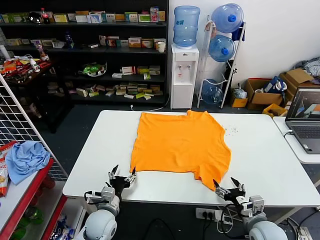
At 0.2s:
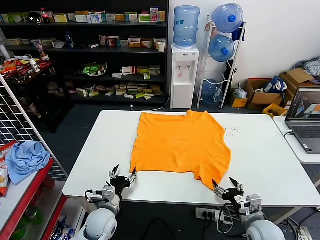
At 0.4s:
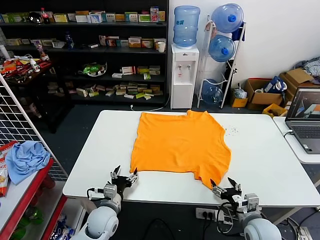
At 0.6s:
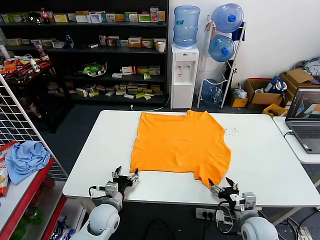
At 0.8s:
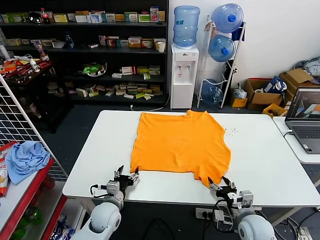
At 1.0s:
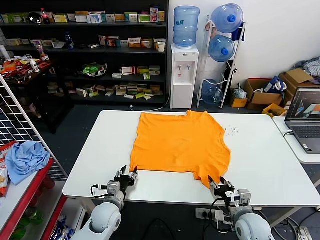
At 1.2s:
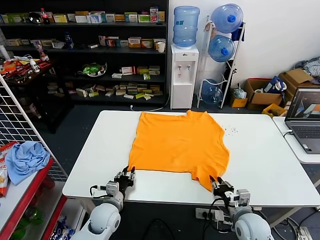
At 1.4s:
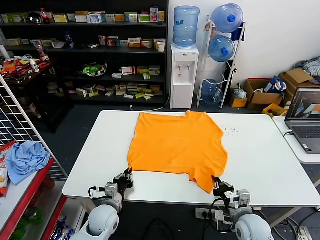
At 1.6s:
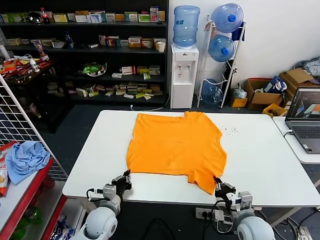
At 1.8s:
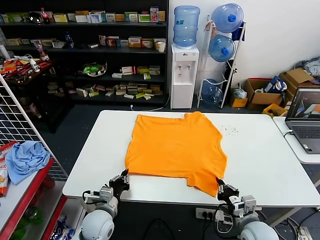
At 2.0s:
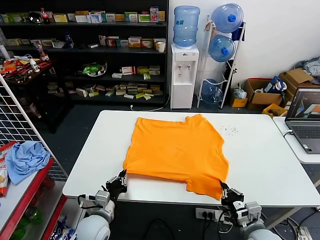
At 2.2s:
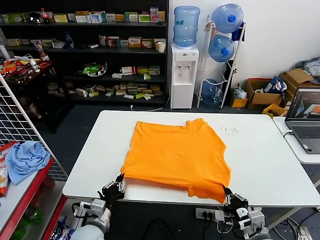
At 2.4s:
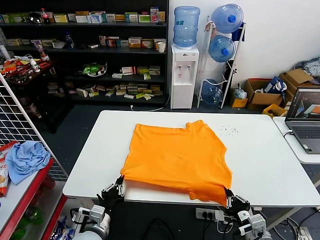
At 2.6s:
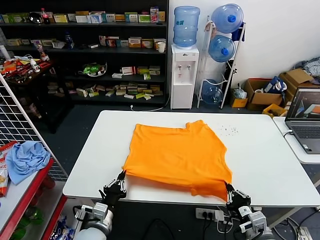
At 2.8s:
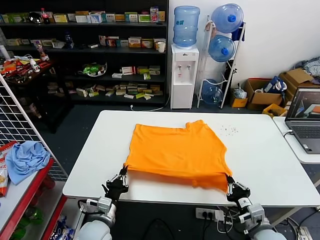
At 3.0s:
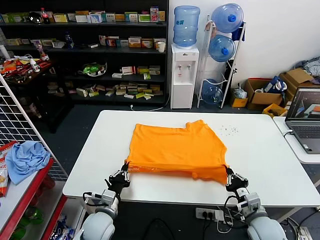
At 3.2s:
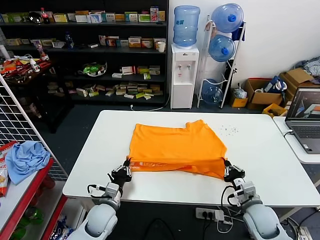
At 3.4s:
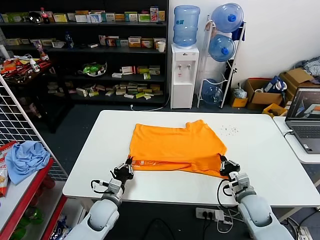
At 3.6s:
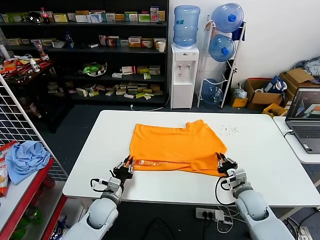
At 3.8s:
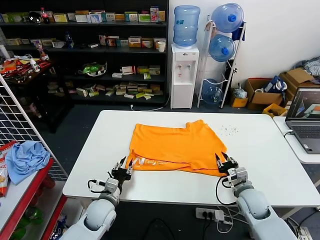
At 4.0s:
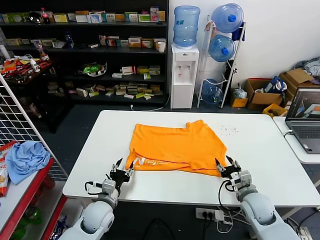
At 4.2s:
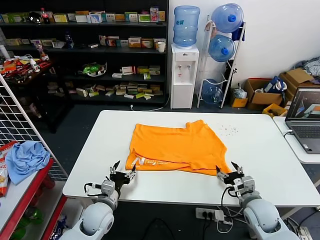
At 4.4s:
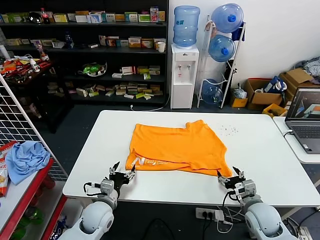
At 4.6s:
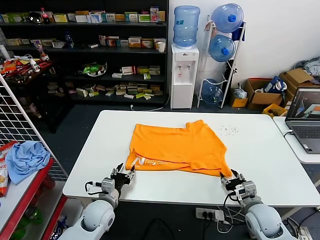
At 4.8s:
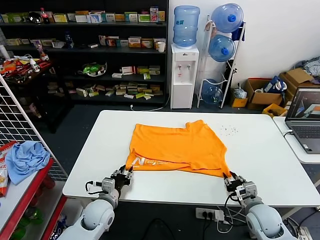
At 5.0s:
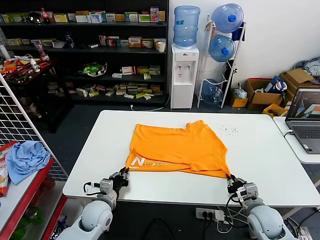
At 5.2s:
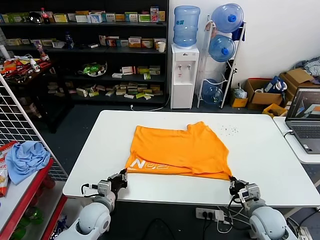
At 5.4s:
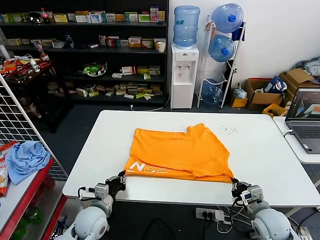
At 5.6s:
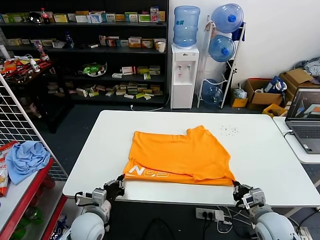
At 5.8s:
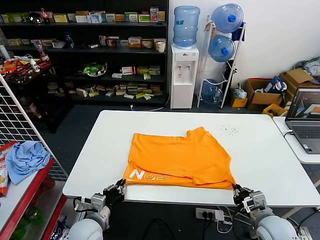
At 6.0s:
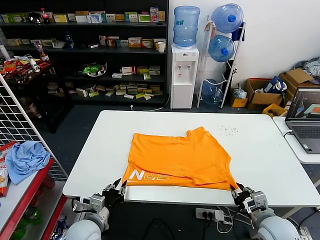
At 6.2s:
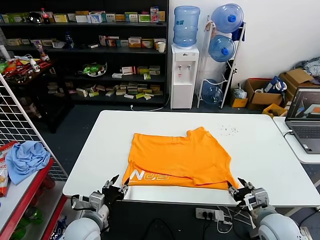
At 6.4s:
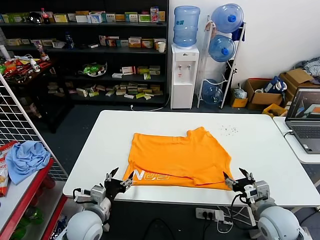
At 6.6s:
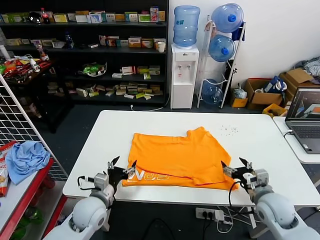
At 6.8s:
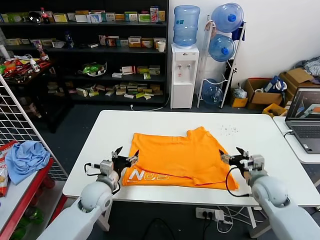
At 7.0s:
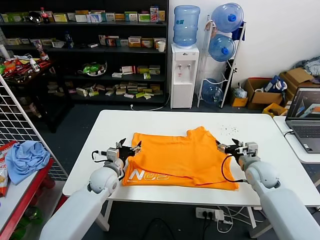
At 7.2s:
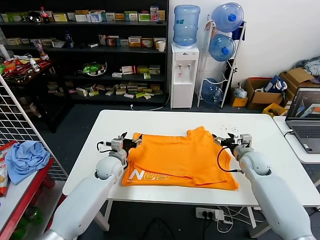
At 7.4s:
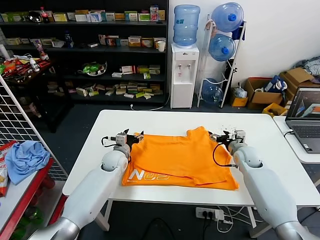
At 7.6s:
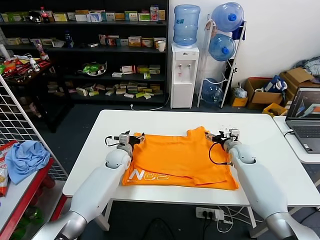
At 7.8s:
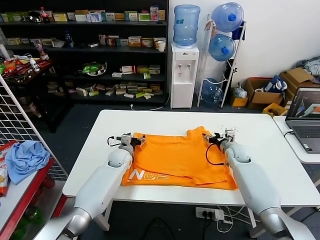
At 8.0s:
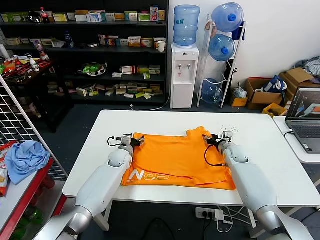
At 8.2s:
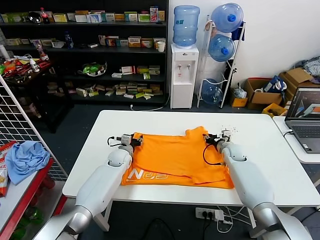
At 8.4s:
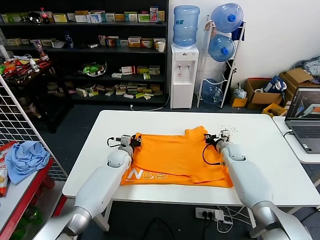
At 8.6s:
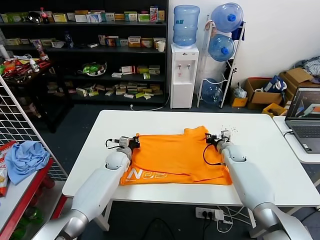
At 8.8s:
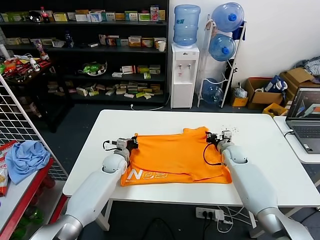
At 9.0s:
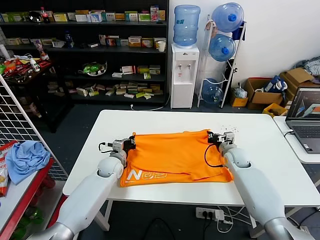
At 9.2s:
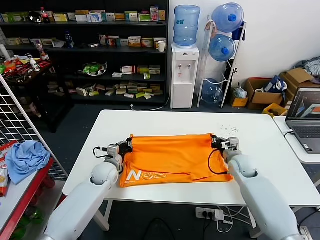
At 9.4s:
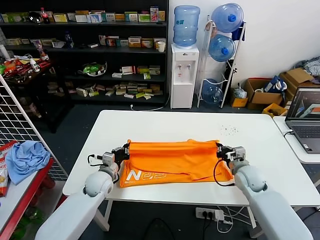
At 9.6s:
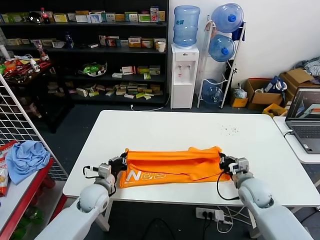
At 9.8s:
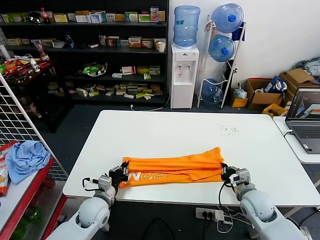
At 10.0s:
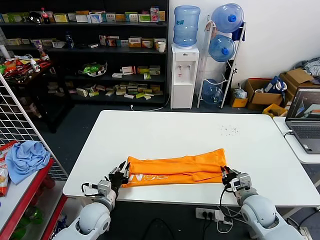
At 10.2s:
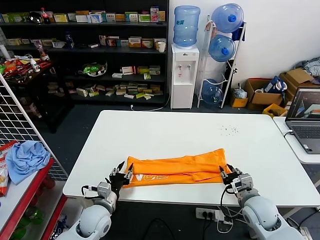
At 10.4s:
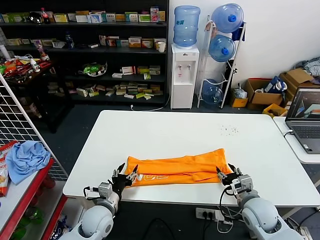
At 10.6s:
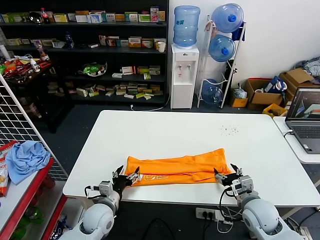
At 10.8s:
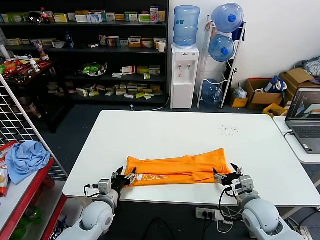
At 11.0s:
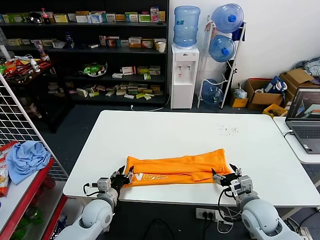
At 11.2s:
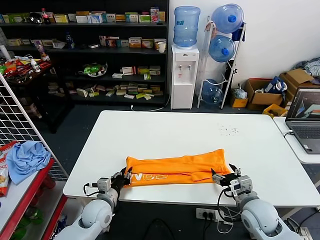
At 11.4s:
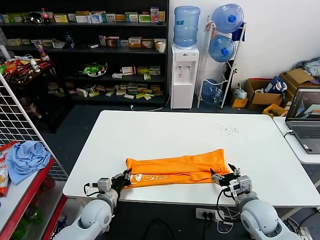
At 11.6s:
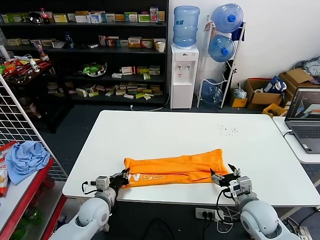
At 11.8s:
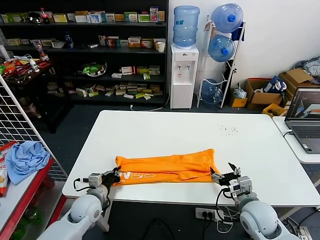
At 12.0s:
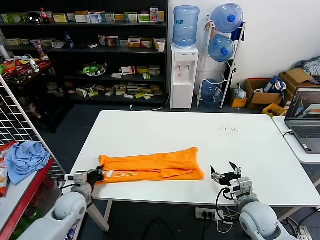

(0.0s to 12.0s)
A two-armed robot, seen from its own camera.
Task of the whole recording: fold and organize the clothes.
Step, 0.0s - 1.6s: use both grippers simultaneously to clamp the lower edge of the clothing fabric.
Step, 1.8s - 3.6s: use both grippers to drag the lower edge of the fabric forward and fold it over the upper edge.
Step, 3.8s - 6.0s: Drag the clothes downward with both gripper.
Step, 6.2s - 8.6s: use both grippers simultaneously to clamp the upper edge of the clothing fabric.
Step, 8.8s - 10.0s: use both grippers to drag the upper edge of the fabric backward and fold it over the lower edge.
Step, 10.2s - 11.4s: use the left gripper to clamp the left edge of the fabric.
1.6s - 3.0s: The right gripper reaches some 10 cm backward, then returns; the left gripper travels backward and back again, approximately 10 cm each way.
3.0s - 4.4s: The right gripper reaches roughly 10 cm forward, then returns, and opens its fingers, while the left gripper opens up.
4.4s - 6.0s: The two grippers go about 5 cm backward. The left gripper closes; the right gripper closes its fingers.
6.0s - 7.6s: Both grippers move forward, roughly 30 cm. The right gripper opens its fingers. Meanwhile the left gripper opens up.
7.6s - 9.0s: The right gripper closes its fingers, while the left gripper closes up.
9.0s - 10.4s: Both grippers move backward, about 20 cm. The right gripper opens; the left gripper opens.
10.4s - 12.0s: The left gripper travels to the left by some 10 cm, and closes up.

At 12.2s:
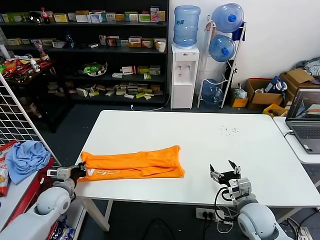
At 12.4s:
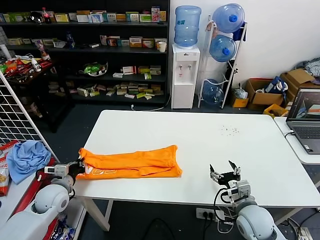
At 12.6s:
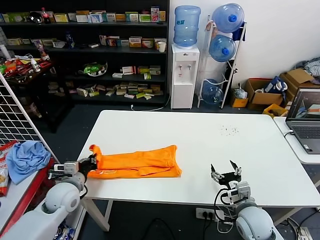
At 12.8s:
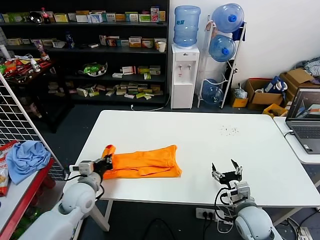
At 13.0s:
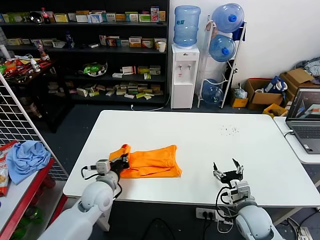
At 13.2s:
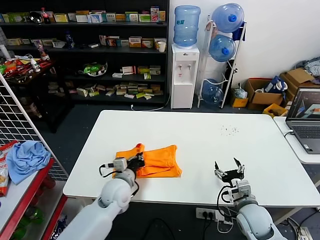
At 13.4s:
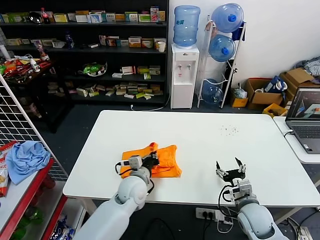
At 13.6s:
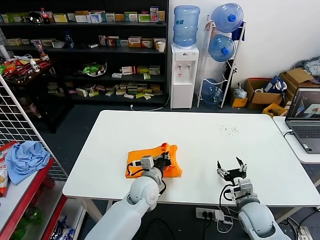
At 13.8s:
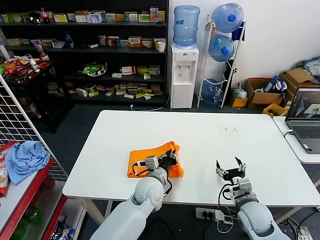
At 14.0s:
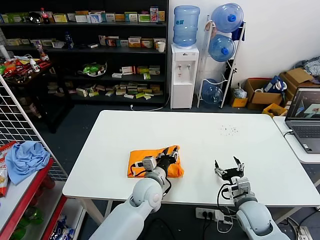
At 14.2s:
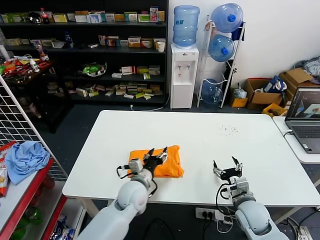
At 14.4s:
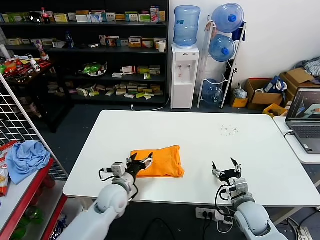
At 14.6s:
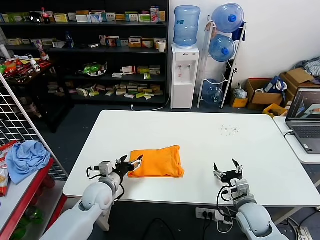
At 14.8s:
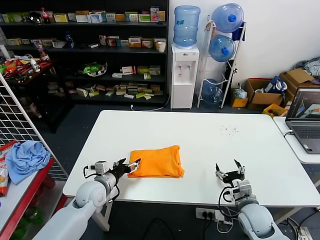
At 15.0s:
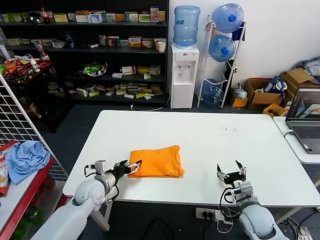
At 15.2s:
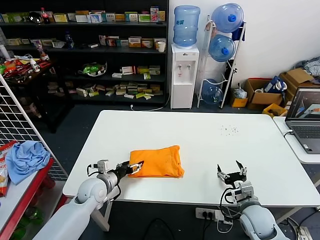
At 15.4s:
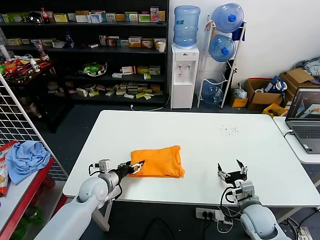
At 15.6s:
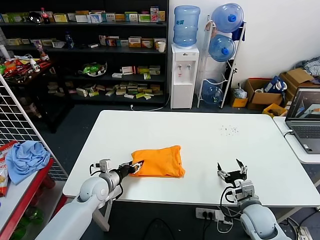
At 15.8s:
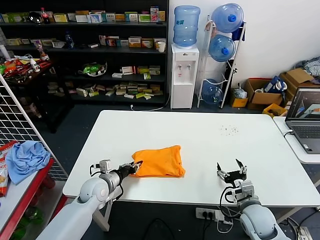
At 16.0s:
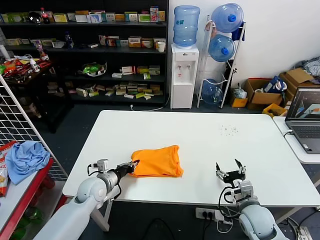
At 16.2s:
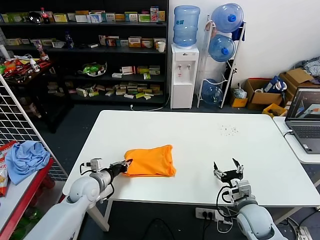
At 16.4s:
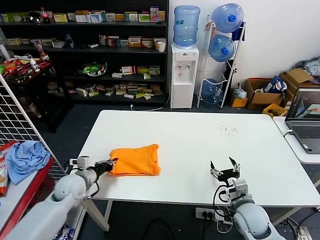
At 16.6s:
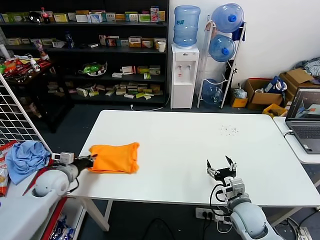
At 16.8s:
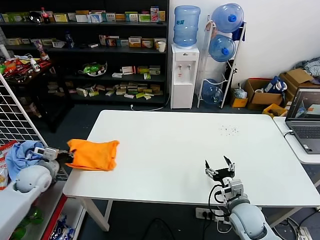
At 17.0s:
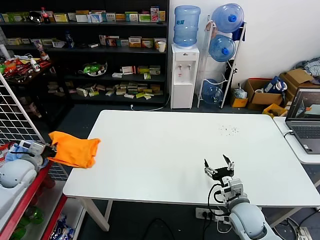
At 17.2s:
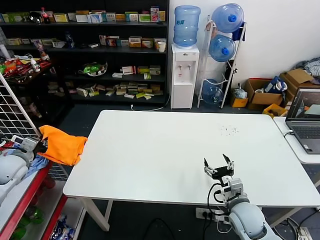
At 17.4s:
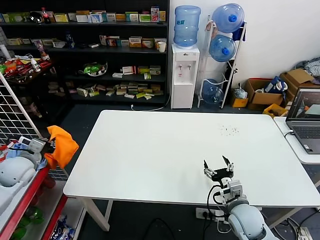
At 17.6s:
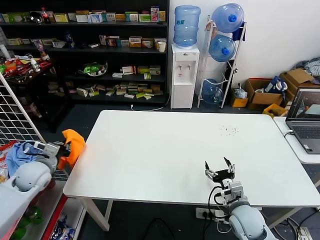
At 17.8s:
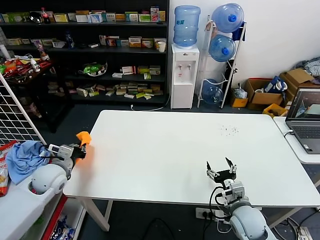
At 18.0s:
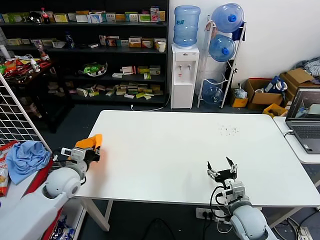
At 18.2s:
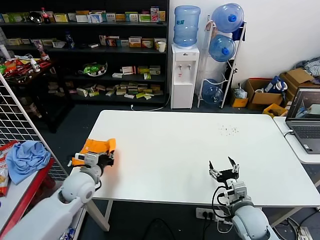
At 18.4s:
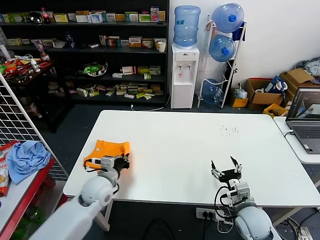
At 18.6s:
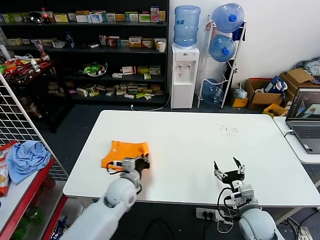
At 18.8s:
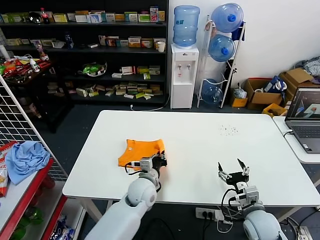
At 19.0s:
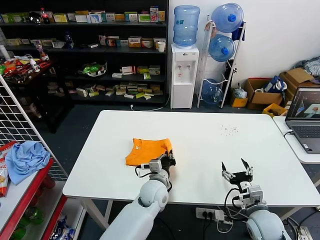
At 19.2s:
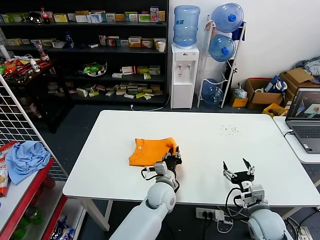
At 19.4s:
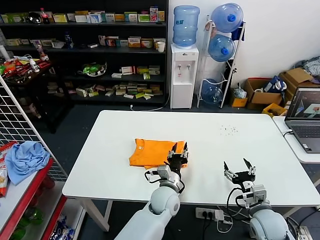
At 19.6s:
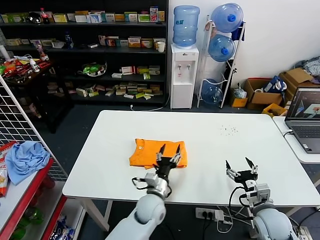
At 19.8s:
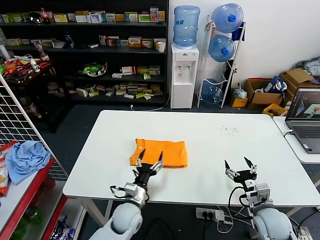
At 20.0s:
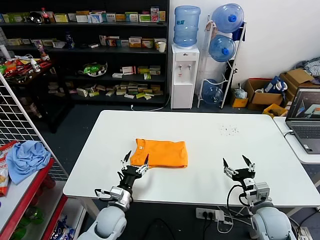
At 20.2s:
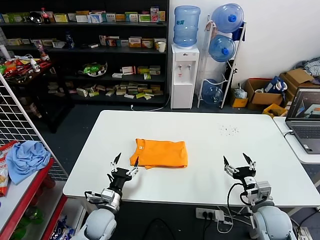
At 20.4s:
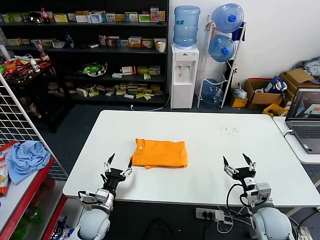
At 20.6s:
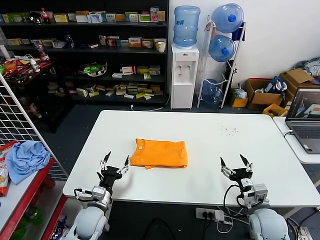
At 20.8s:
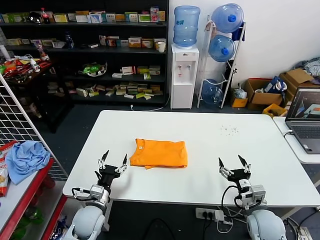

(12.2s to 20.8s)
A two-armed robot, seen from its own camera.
Task of the whole recording: fold and organize the clothes.
Step, 12.2s - 13.8s: use the left gripper to drag the left edge of the fabric to the left and folds it over the right edge.
Step, 14.0s - 19.2s: Flip the folded clothes over with left gripper.
12.2s - 13.6s: The left gripper travels to the right by some 30 cm.
13.6s - 15.0s: The left gripper heads to the left, covering about 20 cm, and opens its fingers.
15.0s - 16.6s: The left gripper travels to the left by approximately 10 cm, and closes up.
16.6s - 18.0s: The left gripper goes to the left and returns, some 15 cm each way.
18.0s - 19.4s: The right gripper moves to the right, approximately 5 cm. The left gripper goes some 35 cm to the right, and opens its fingers.
19.4s - 20.8s: The left gripper moves to the left, some 25 cm, and opens.

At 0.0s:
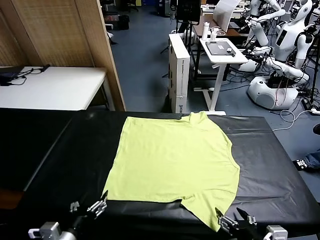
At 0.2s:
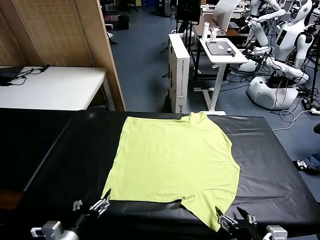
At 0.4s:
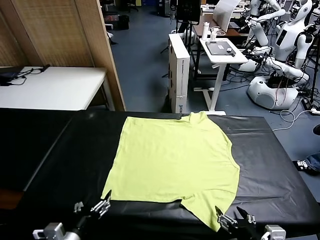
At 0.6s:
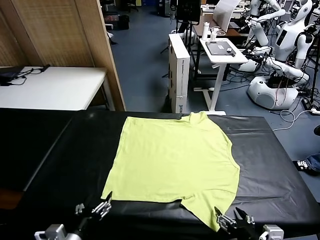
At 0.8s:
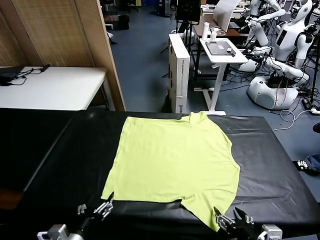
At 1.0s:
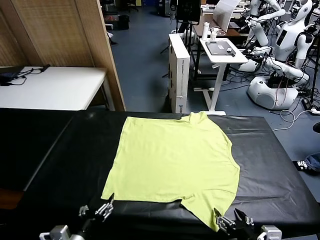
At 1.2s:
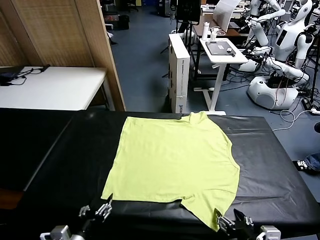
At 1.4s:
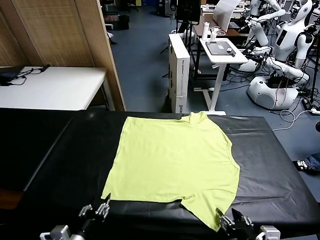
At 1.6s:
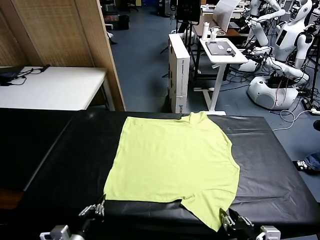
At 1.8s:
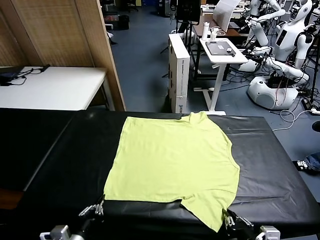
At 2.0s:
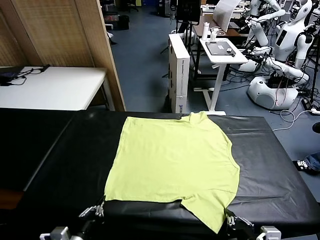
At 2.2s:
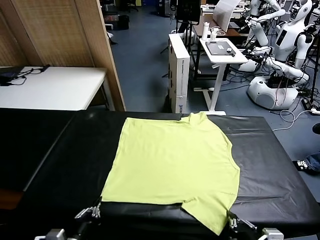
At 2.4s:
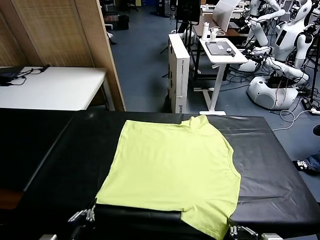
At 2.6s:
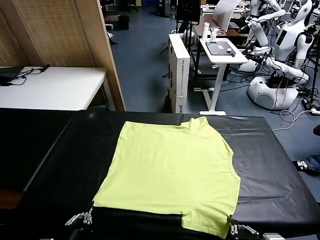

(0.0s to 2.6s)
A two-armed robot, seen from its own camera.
Task of the whole recording: fold and organize the clothes.
Step, 0.0s - 2.0s: use both grippers simultaneously to clamp the lower edge of the clothing fabric.
1.2s - 2.6s: The left gripper closes.
